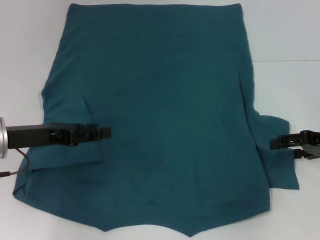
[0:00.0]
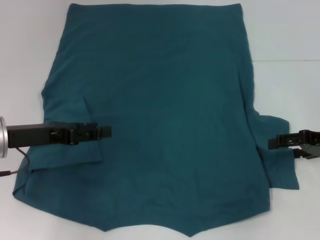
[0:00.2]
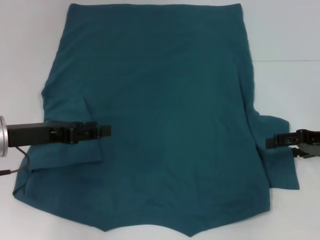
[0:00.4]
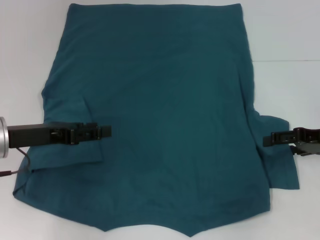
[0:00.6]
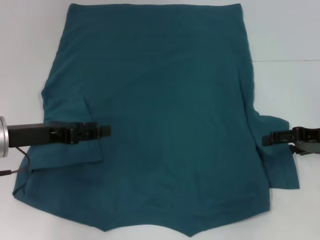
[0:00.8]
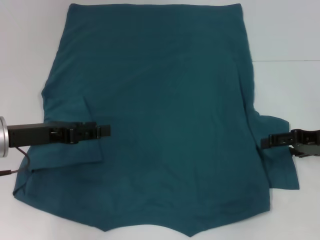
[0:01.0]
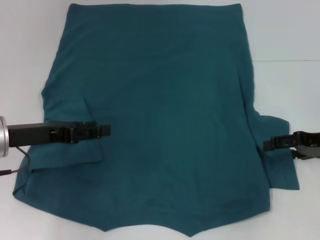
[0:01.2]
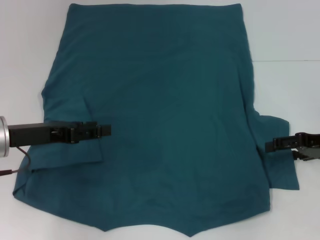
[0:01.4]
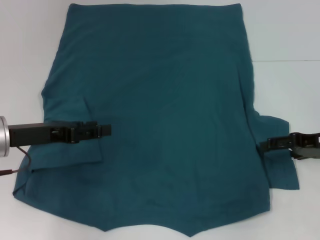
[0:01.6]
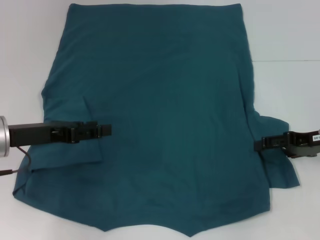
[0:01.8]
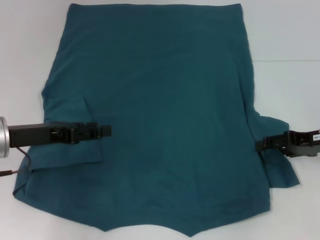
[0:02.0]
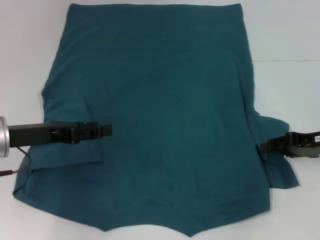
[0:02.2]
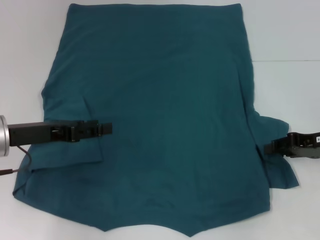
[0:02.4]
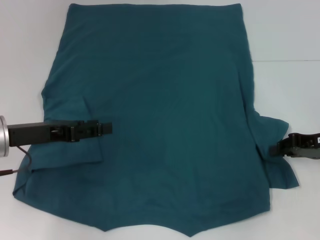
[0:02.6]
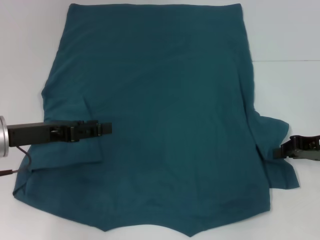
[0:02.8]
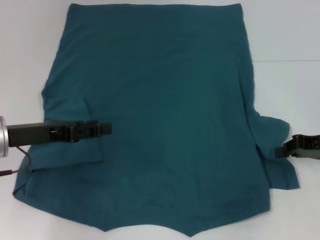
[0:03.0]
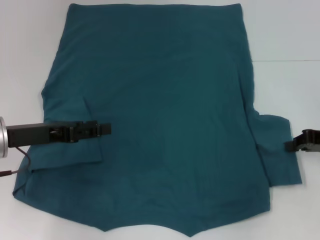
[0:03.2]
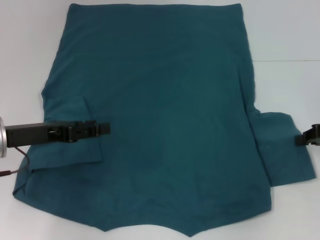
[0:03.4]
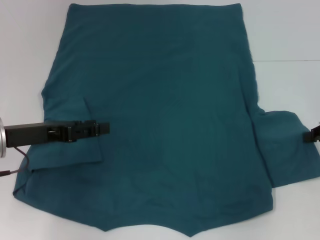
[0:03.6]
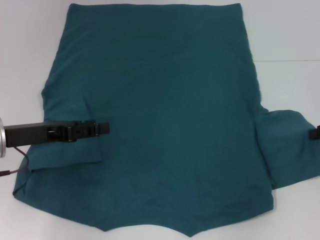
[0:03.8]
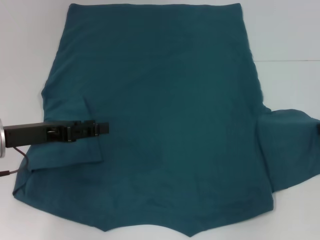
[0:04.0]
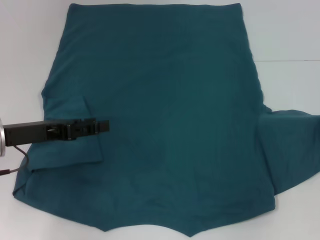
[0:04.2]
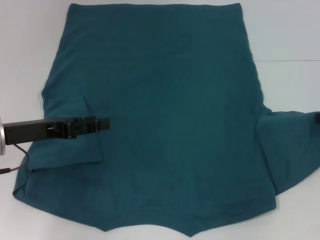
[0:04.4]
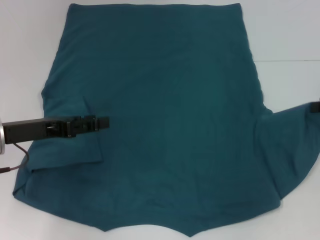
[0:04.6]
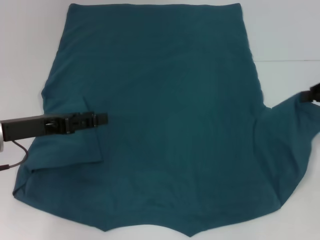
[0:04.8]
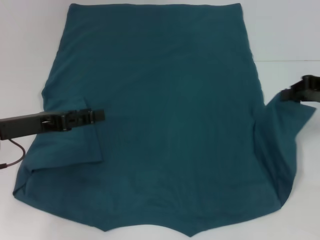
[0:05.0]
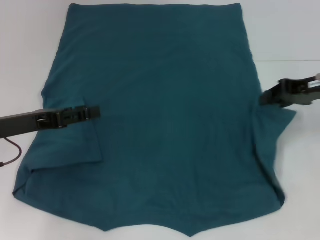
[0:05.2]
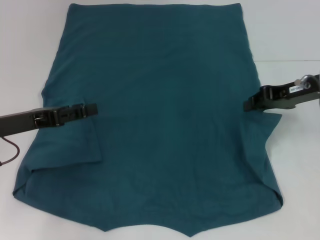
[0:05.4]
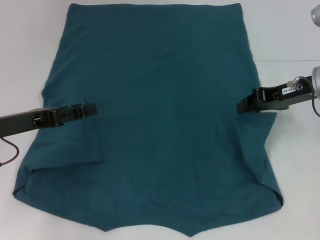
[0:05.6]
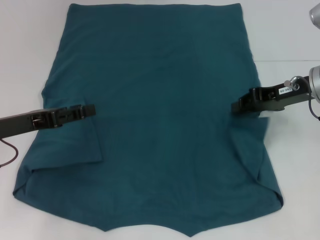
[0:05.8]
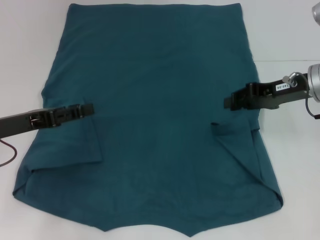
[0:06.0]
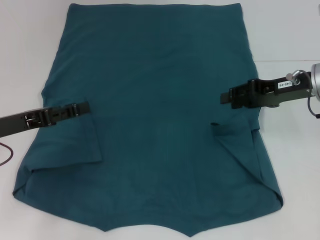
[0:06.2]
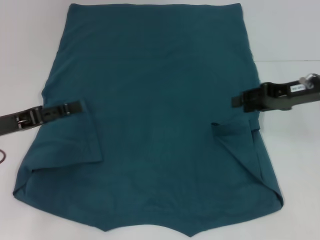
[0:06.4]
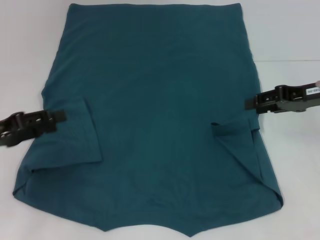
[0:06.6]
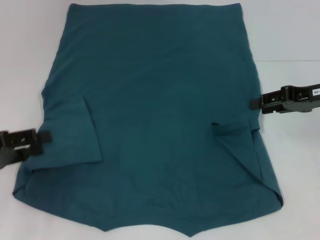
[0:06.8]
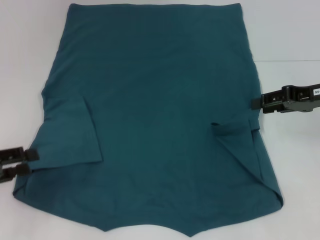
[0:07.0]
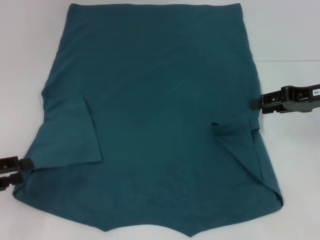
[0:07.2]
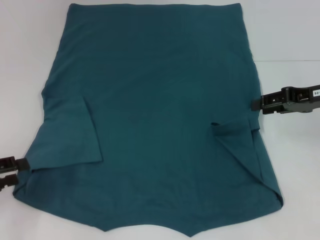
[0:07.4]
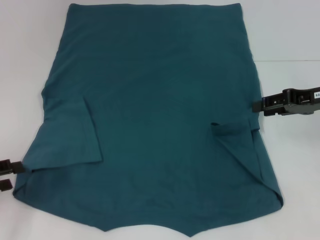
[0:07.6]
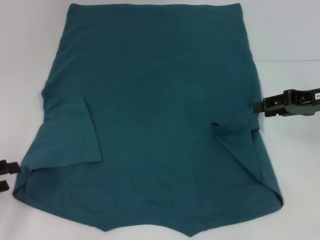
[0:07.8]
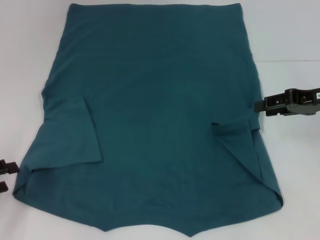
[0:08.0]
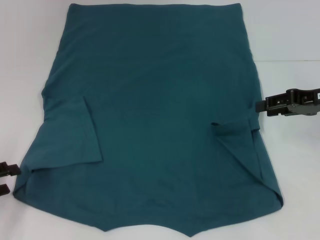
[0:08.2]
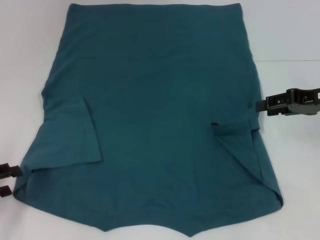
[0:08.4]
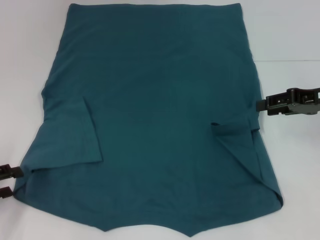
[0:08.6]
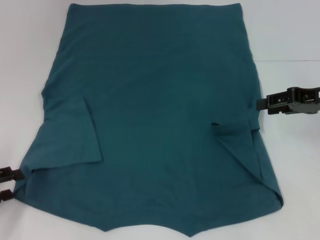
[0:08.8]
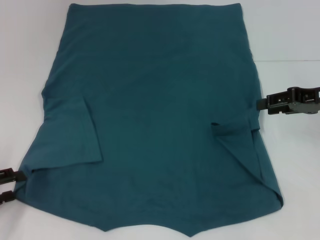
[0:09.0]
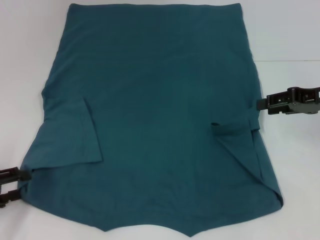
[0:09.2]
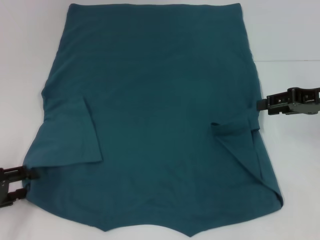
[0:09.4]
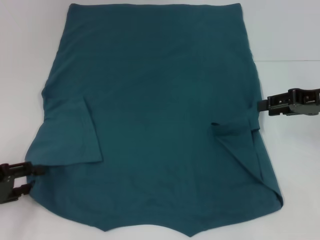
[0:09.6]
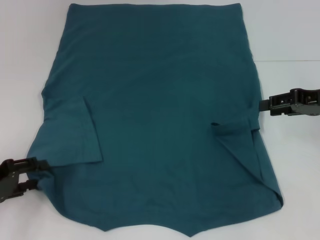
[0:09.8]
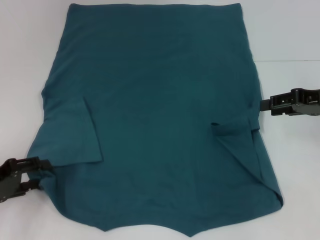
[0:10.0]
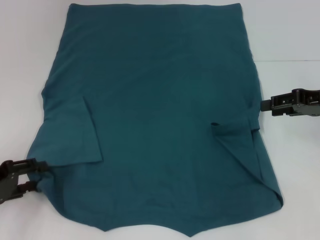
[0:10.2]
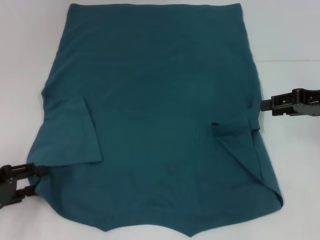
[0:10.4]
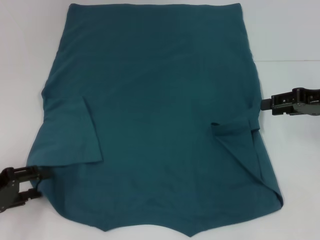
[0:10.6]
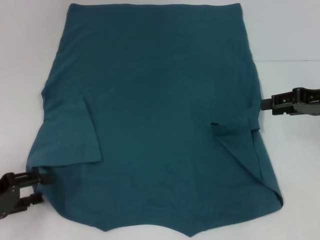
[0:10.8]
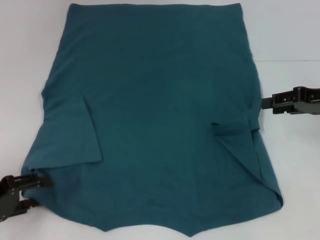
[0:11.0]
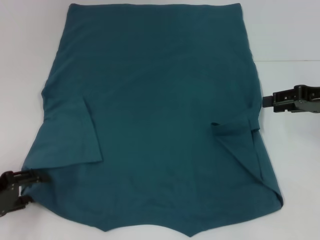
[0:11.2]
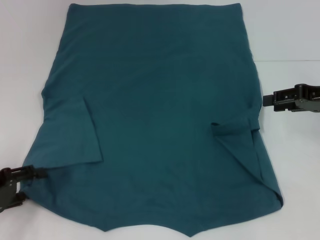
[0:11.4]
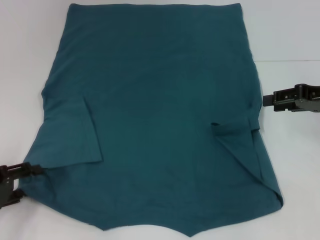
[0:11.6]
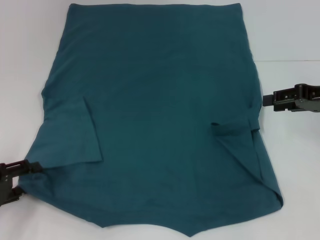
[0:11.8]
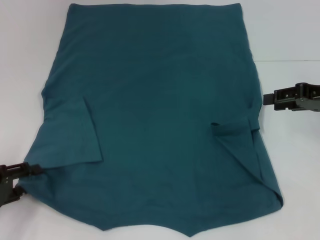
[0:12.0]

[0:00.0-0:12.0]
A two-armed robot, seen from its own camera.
Step, 0:00.0 to 0:06.2: Fold the bottom right sleeve to the right.
0:00.0 to 0:01.6: There are only small adjustments of the grippers.
0:01.6 to 0:03.0: The right gripper closes its fingers.
0:03.0 to 0:04.4: The right gripper heads to the right, covering roughly 5 cm.
0:04.4 to 0:06.0: The right gripper moves to the left, roughly 15 cm.
0:06.0 to 0:07.6: The left gripper goes roughly 10 cm to the left and backward. Meanwhile the right gripper moves to the right, approximately 5 cm, and opens its fingers.
0:07.6 to 0:12.0: The grippers stay close to where they were, moving slightly.

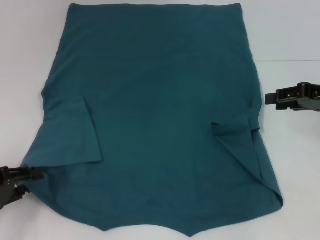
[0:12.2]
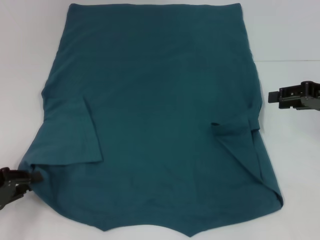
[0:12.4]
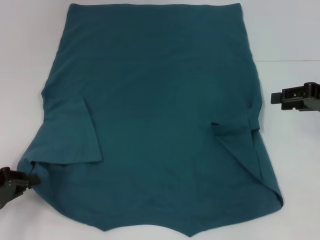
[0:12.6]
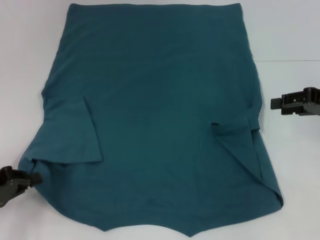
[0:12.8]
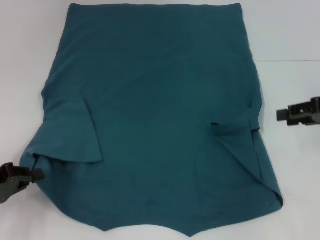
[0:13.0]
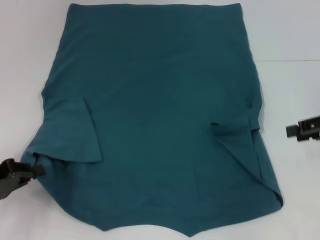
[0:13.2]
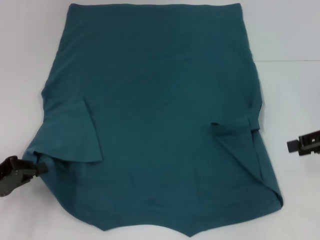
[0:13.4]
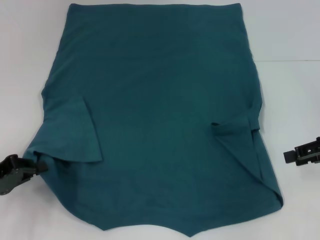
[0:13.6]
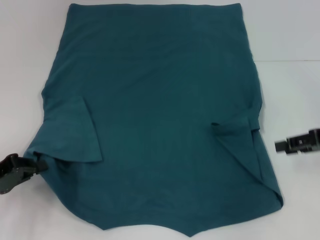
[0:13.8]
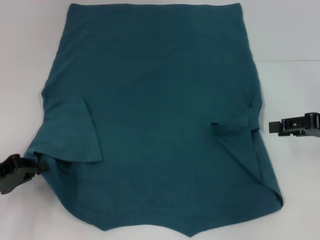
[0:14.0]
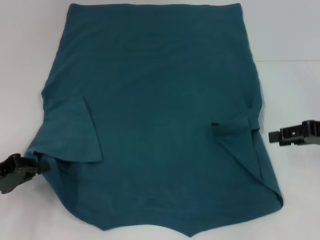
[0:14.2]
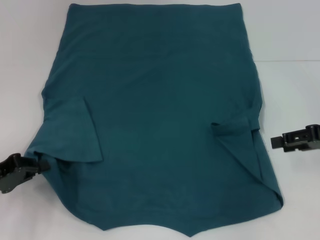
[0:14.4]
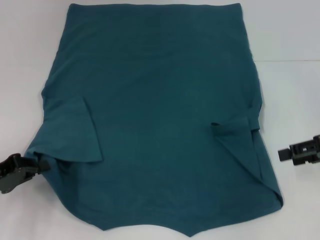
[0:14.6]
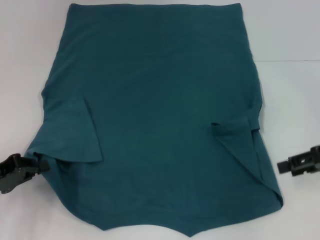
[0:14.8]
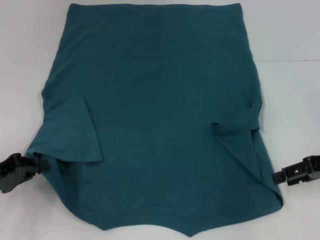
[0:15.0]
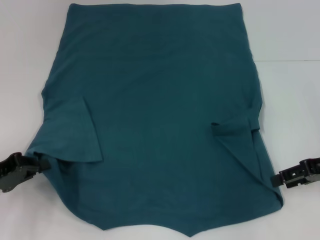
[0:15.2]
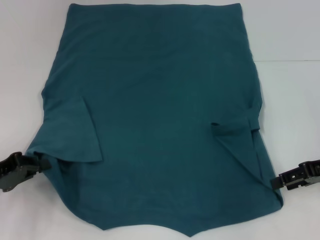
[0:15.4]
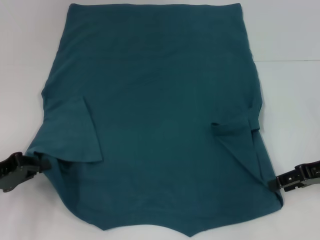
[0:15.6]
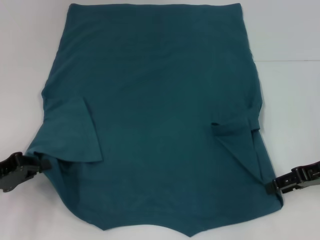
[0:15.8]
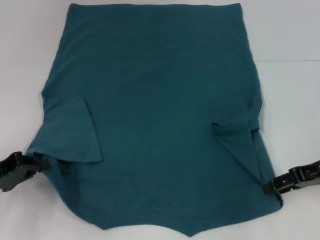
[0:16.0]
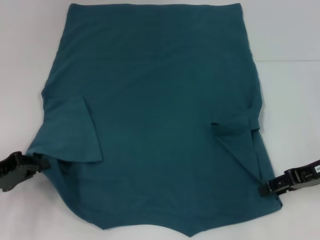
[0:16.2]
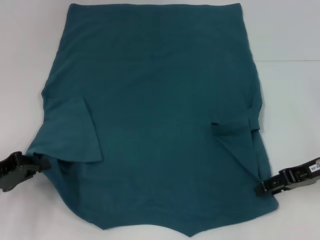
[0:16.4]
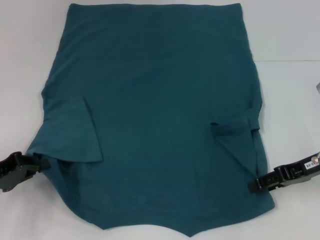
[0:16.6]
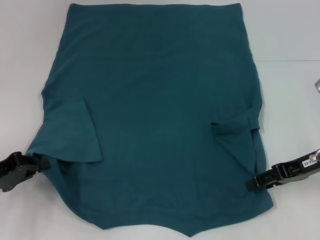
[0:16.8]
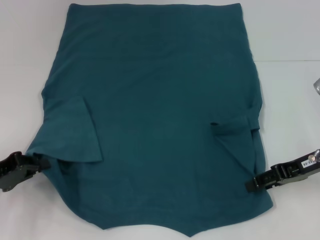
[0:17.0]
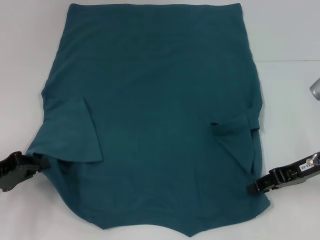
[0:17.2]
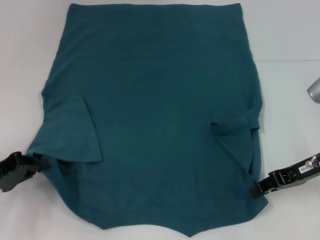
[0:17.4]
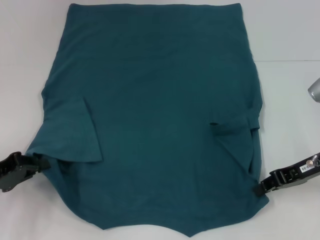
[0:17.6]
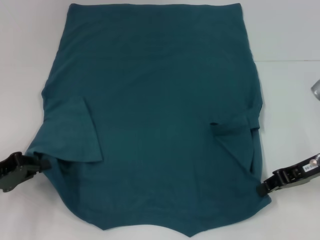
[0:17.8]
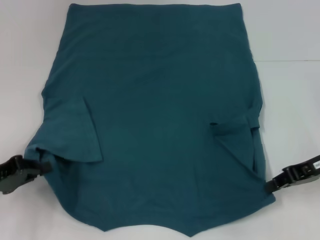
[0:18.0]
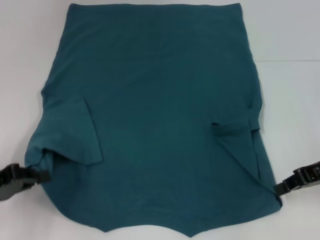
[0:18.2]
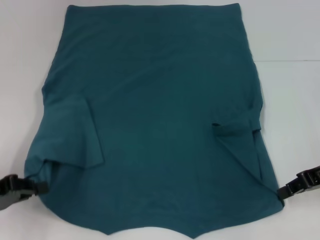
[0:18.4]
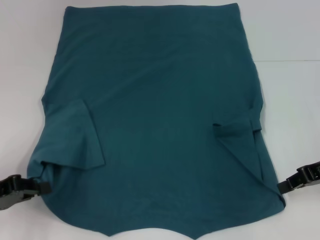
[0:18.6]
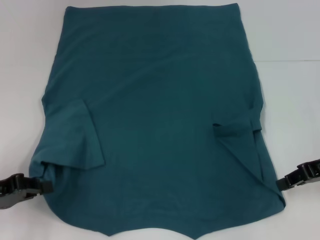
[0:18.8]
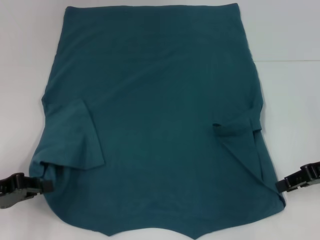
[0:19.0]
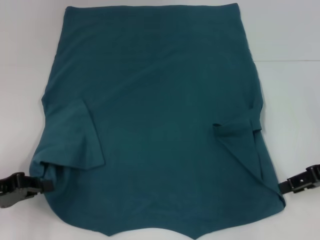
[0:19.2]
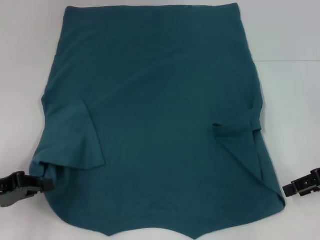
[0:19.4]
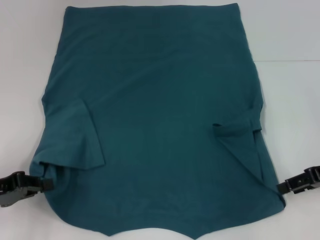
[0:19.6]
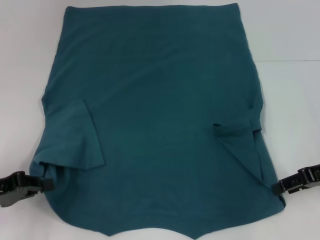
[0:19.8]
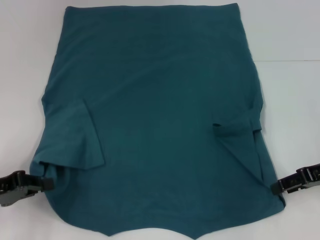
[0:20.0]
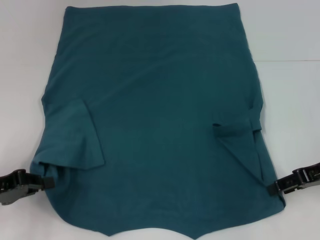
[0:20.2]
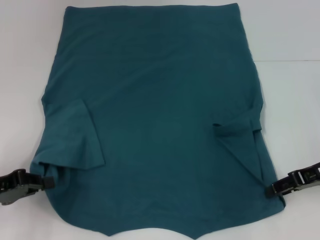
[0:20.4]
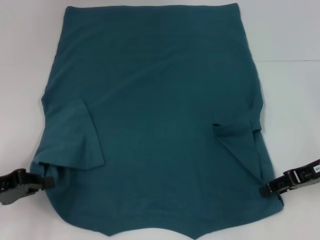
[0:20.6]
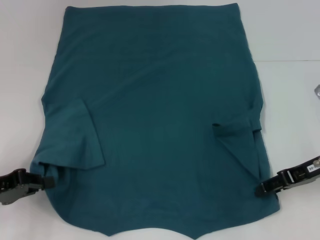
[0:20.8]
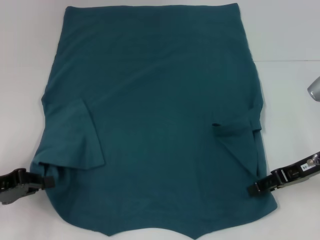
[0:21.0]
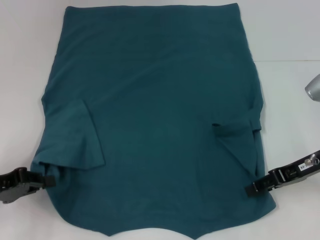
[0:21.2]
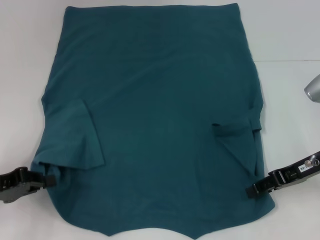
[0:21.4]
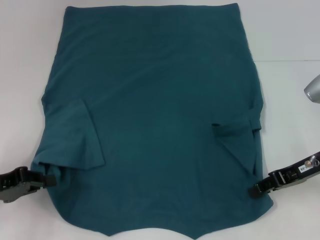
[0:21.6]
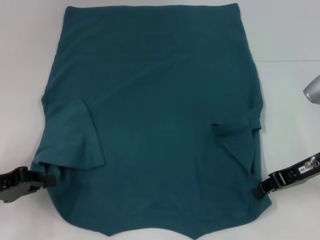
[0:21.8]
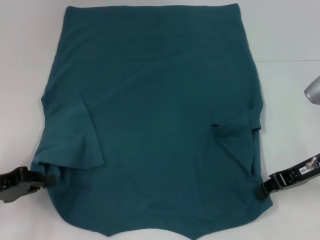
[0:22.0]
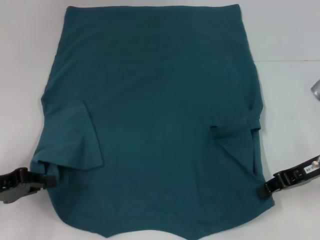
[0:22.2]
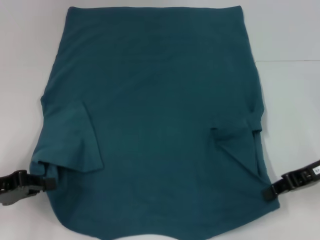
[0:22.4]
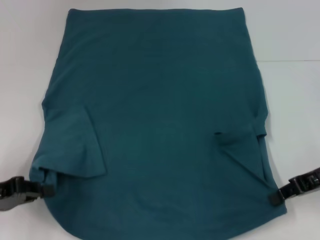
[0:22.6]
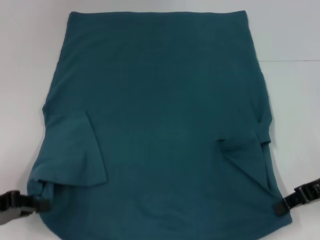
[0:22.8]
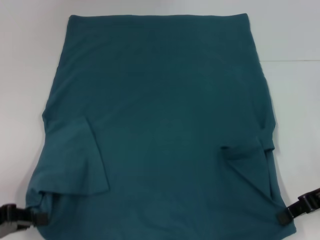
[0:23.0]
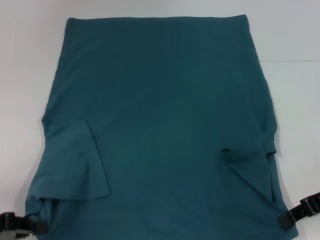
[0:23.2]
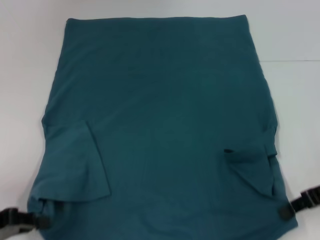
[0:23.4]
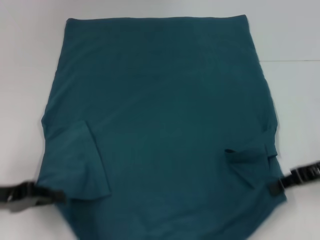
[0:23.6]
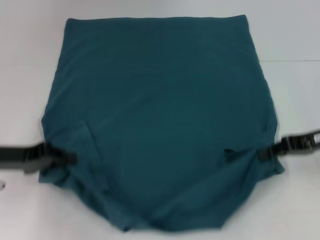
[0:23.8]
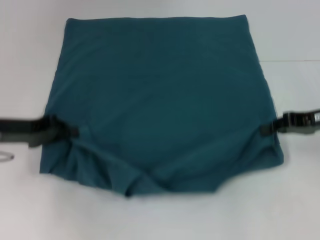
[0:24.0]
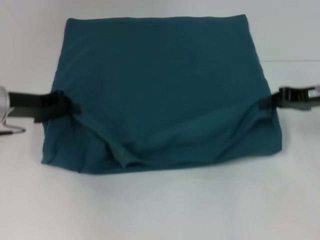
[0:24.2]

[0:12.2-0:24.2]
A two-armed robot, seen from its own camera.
Step, 0:13.0 to 0:22.0: Grab the bottom right corner with your right hand.
0:12.2 to 0:13.8: The left gripper closes.
0:13.8 to 0:15.2: The grippers move only a little.
0:15.2 to 0:16.6: The grippers stay close to where they were, moving slightly.
0:16.6 to 0:18.2: The right gripper closes.
0:18.2 to 0:19.8: The right gripper opens its fingers.
0:19.8 to 0:21.2: The grippers make only small movements.
0:21.2 to 0:22.6: The right gripper closes up.
0:22.6 to 0:24.2: The right gripper travels forward by about 5 cm. Meanwhile the left gripper heads forward and to the right, covering approximately 15 cm.
